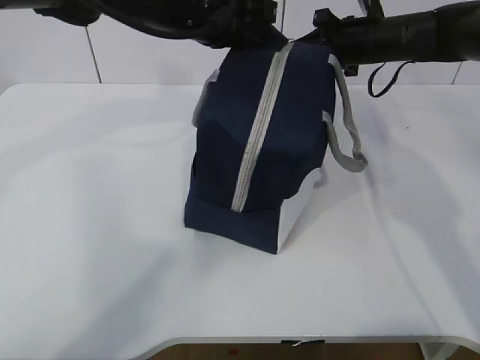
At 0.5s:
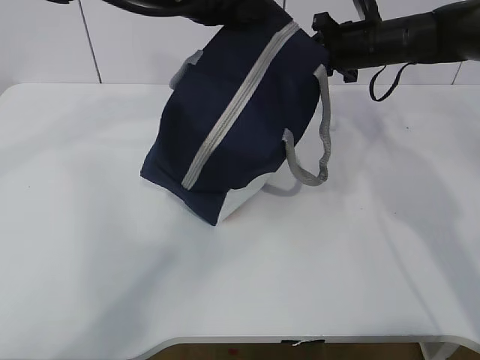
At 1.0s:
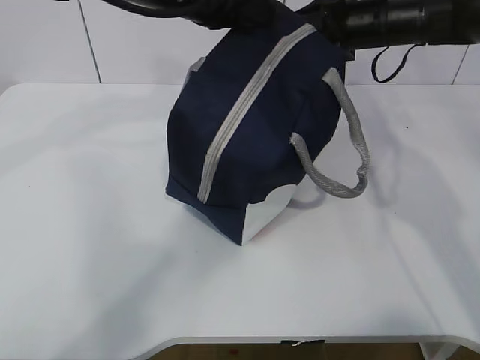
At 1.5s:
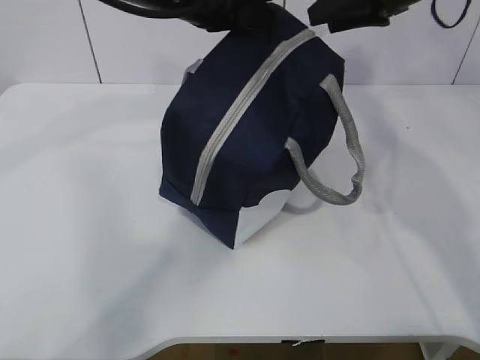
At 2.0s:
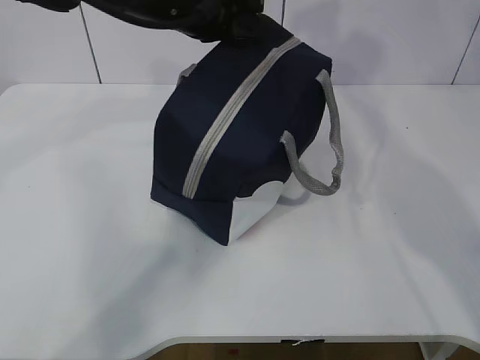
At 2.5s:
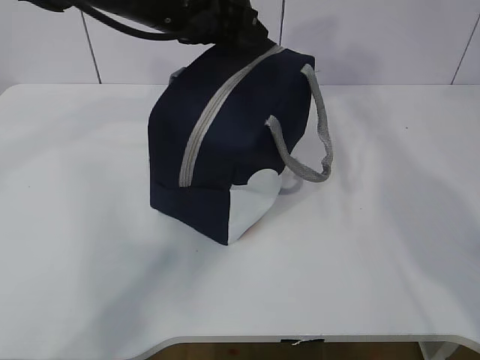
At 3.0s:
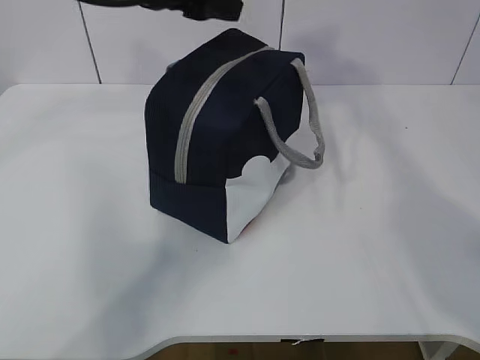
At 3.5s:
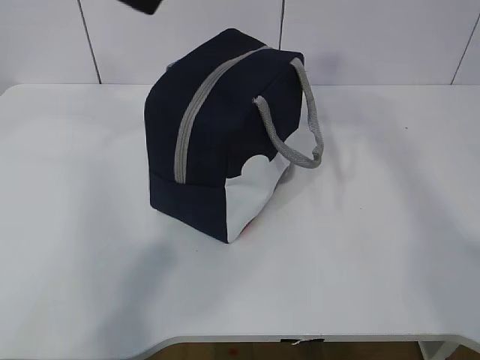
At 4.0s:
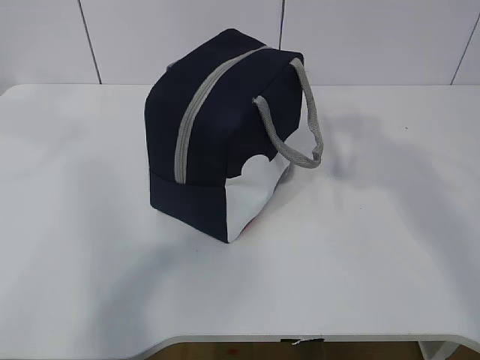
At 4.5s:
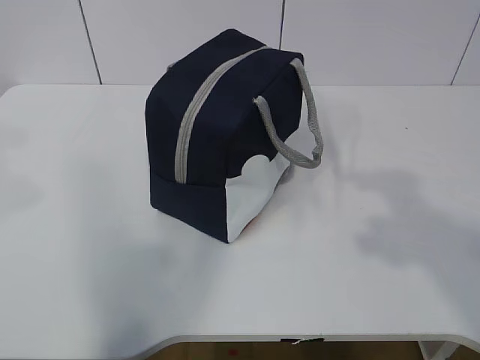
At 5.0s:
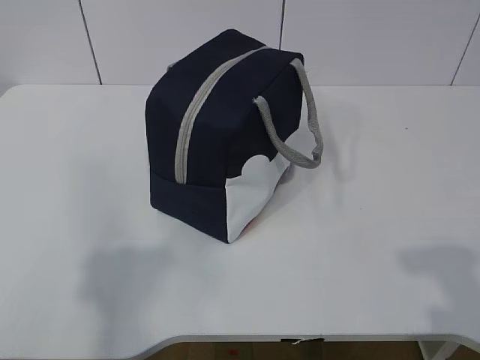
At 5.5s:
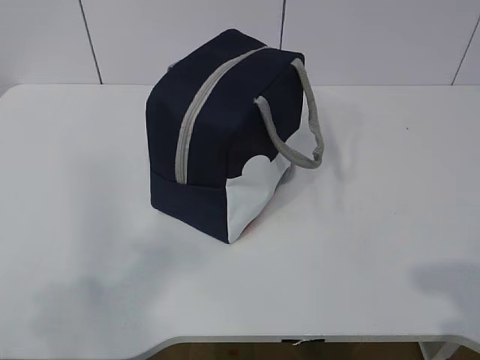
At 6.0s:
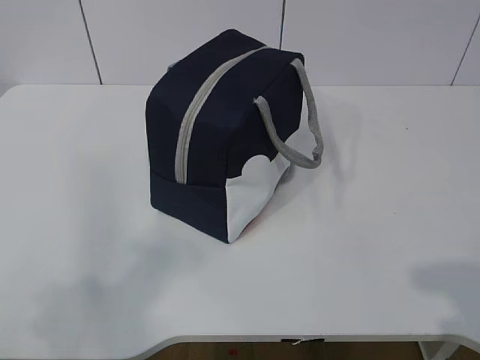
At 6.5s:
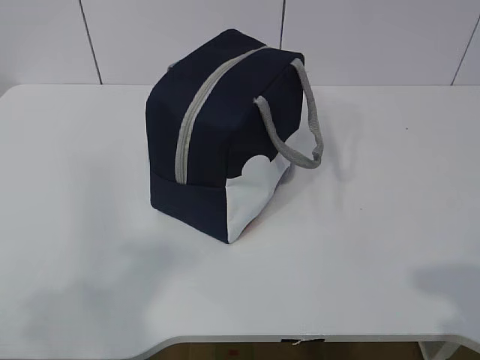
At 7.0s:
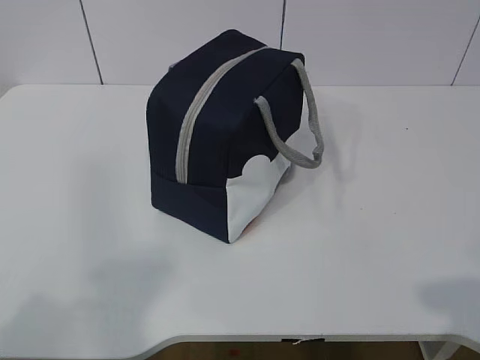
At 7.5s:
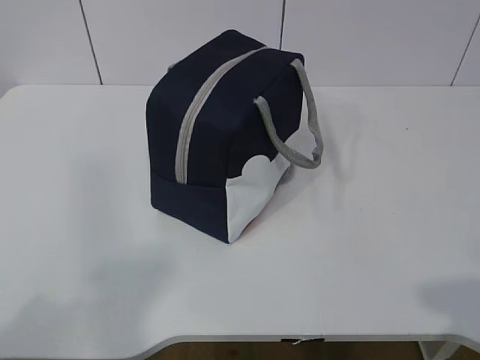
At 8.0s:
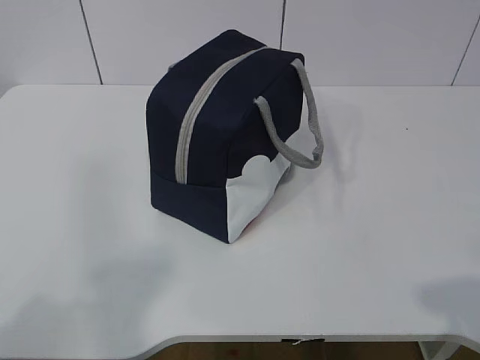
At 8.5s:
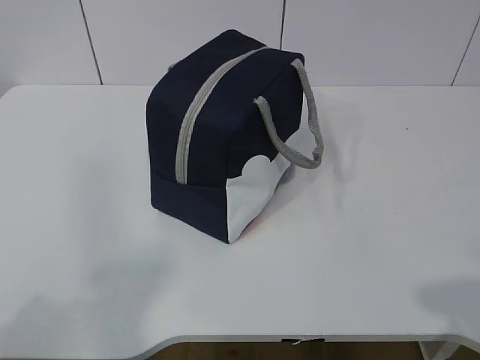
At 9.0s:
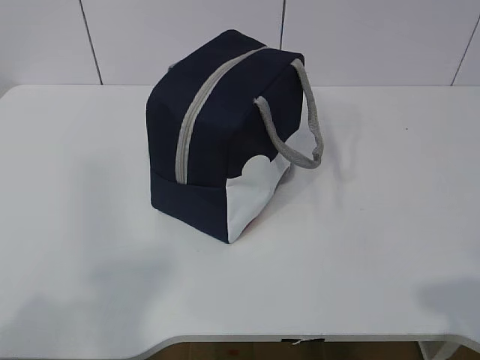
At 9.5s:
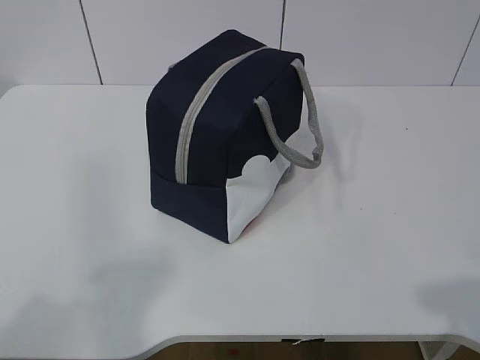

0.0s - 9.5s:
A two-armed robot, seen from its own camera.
0.0s - 2.0s: The right gripper is displaced upward and backward by roughly 20 cm, and opens its fingers.
2.0s - 4.0s: The left gripper goes approximately 25 cm backward, upward and to the left, and opens up, while the right gripper heads backward, covering about 25 cm.
4.0s - 5.5s: The right gripper is displaced backward and downward by some 20 cm; the left gripper travels backward, downward and to the left by approximately 30 cm.
7.5s - 9.5s: The two grippers keep their place.

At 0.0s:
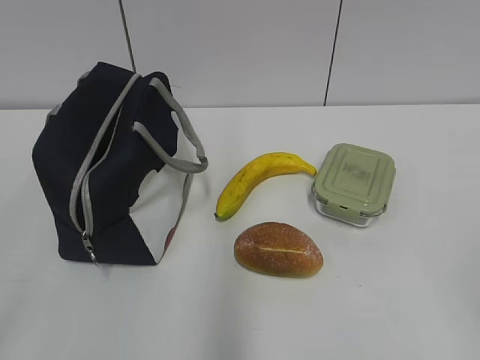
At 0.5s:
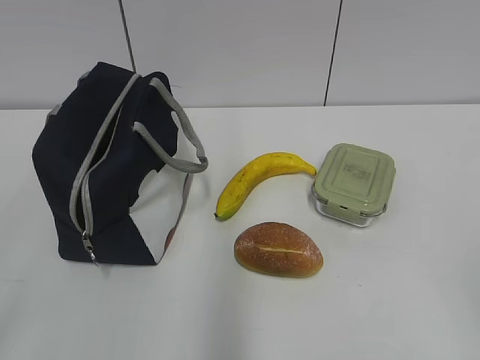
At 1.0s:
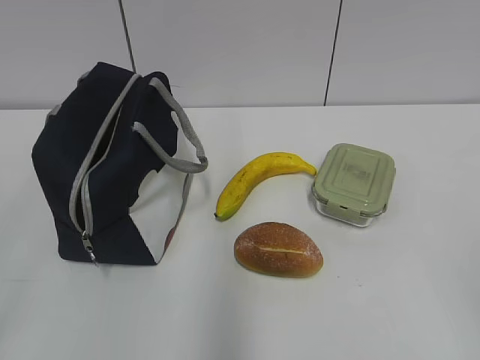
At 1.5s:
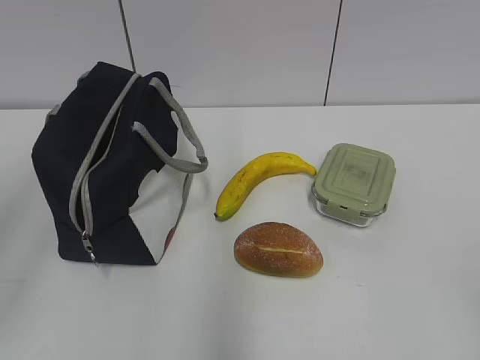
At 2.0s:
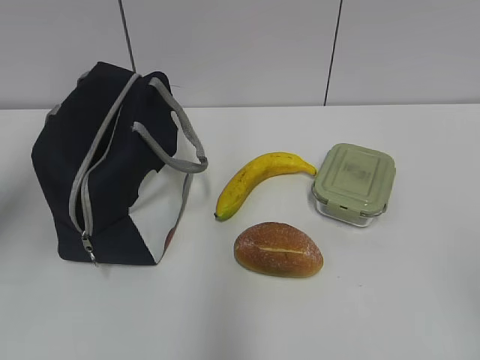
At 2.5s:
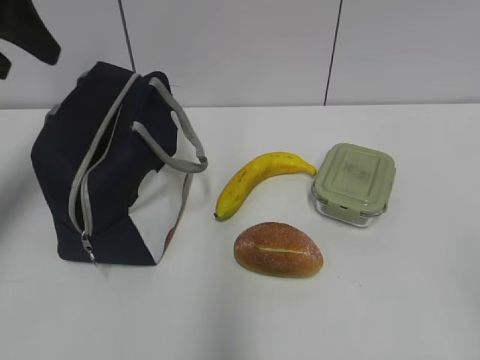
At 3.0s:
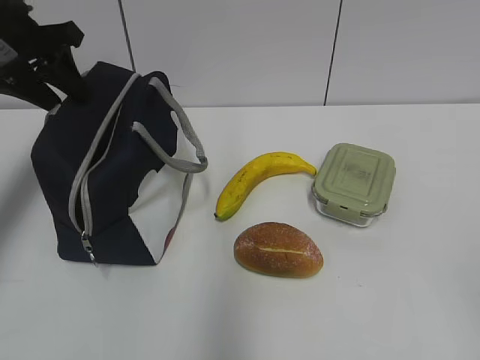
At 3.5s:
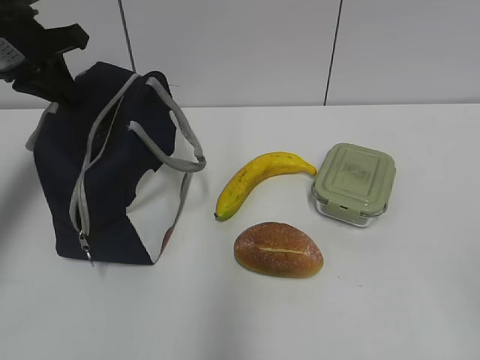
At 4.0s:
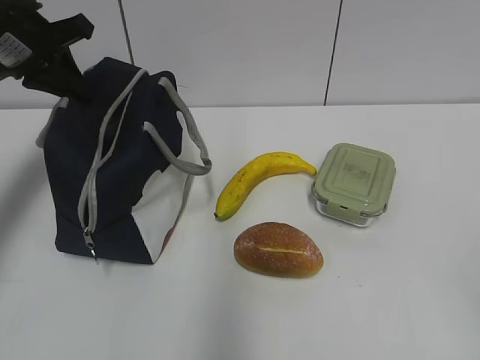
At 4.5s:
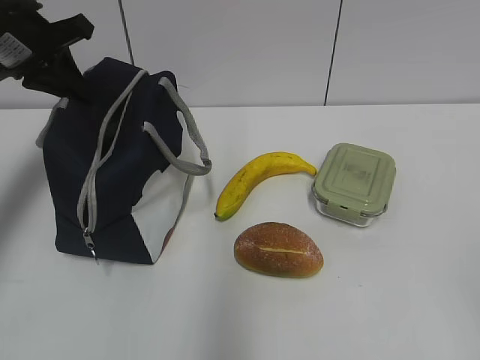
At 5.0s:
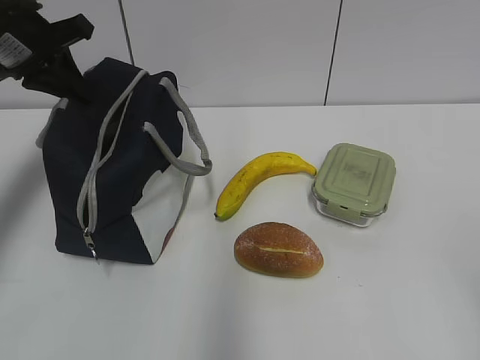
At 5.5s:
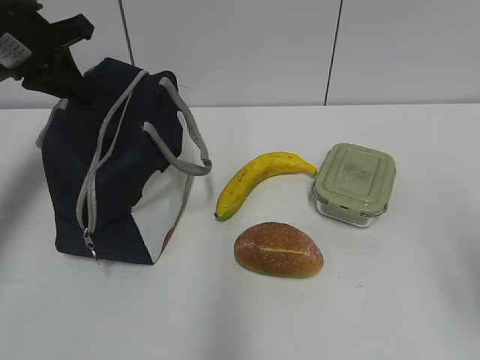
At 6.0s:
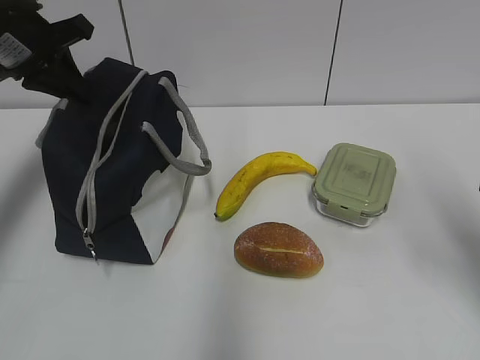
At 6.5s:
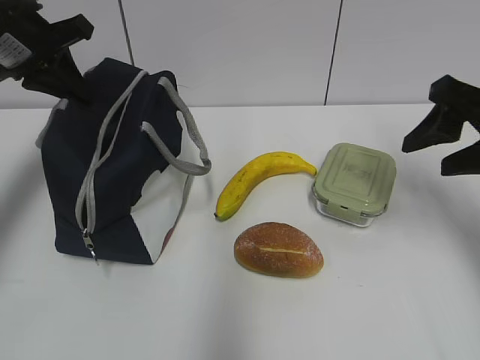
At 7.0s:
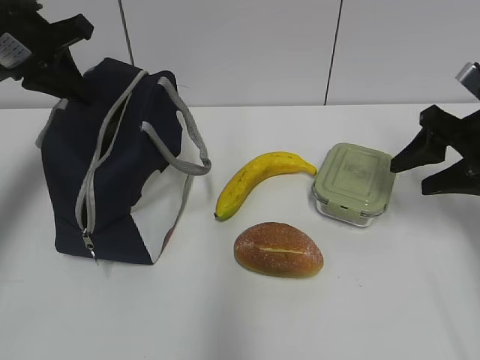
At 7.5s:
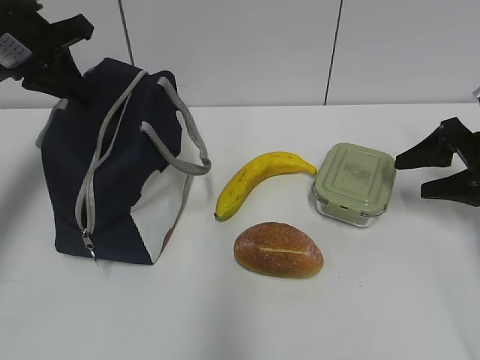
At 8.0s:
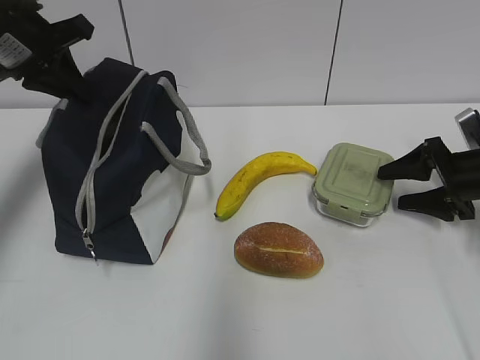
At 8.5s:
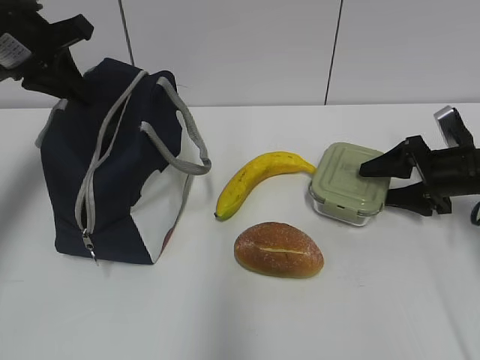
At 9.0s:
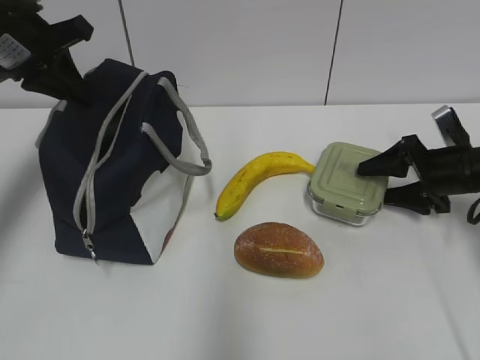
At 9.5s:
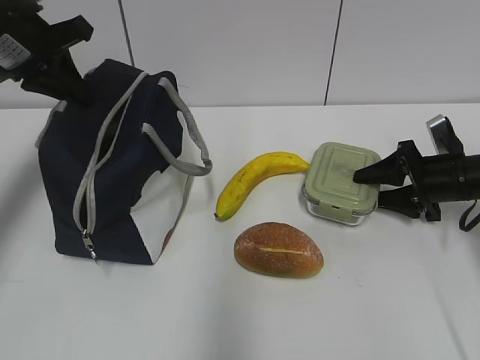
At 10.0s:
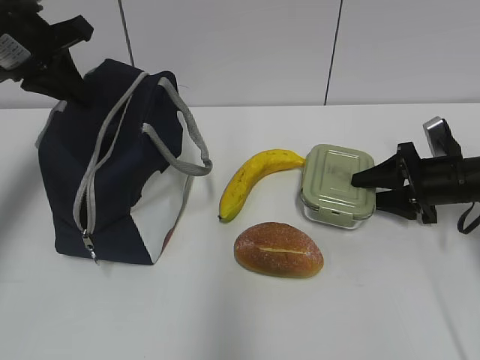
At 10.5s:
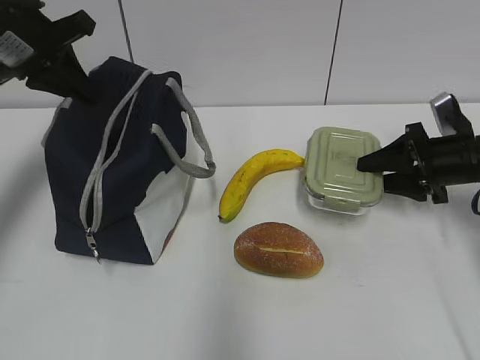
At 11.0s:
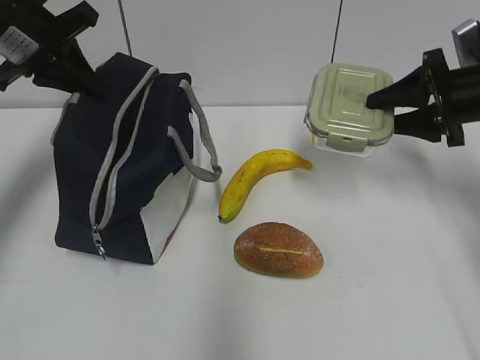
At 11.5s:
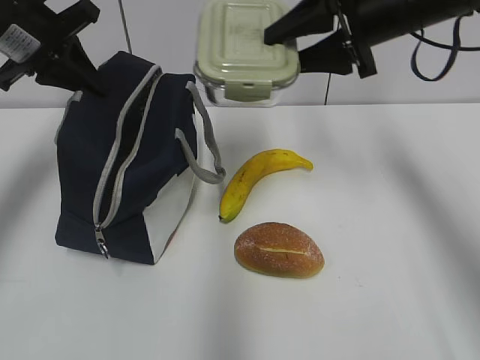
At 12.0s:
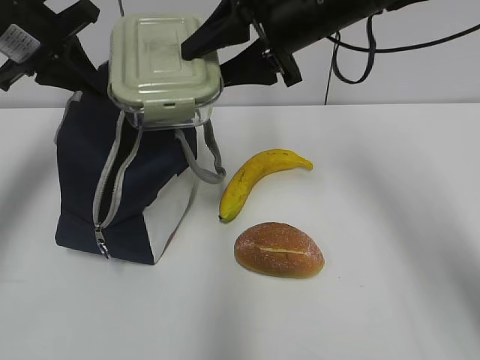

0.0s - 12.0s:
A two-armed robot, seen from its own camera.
Step, 0.0s - 3.0s: Grab the lunch bag with your left hand.
Step, 3.5s - 10.0s: Grab the lunch box with your right hand.
2.0s - 4.0s: The left gripper heads forward and downward, covering some 25 cm, and closes.
4.0s - 6.0s: The right gripper shifts approximately 20 cm forward.
6.0s - 8.0s: The right gripper goes about 25 cm forward and downward.
8.0s - 10.0s: The grippers make only small movements.
10.0s - 12.0s: The right gripper is displaced upward and to the left by about 30 cm.

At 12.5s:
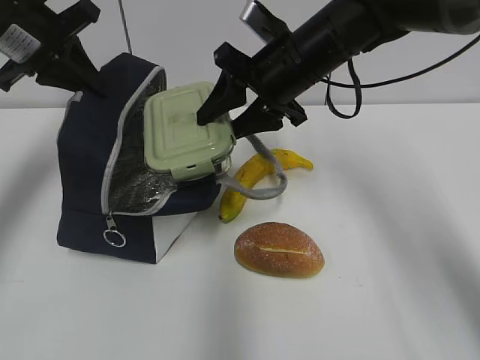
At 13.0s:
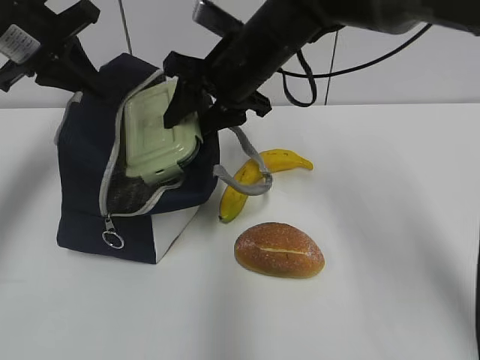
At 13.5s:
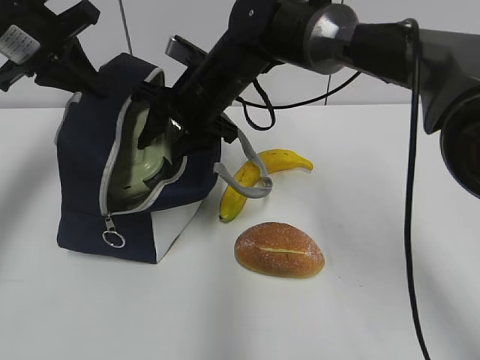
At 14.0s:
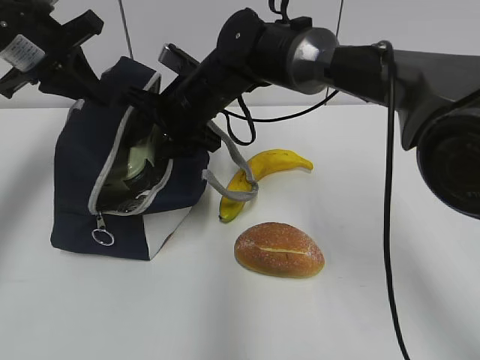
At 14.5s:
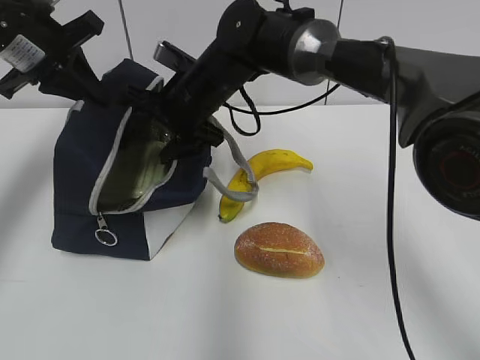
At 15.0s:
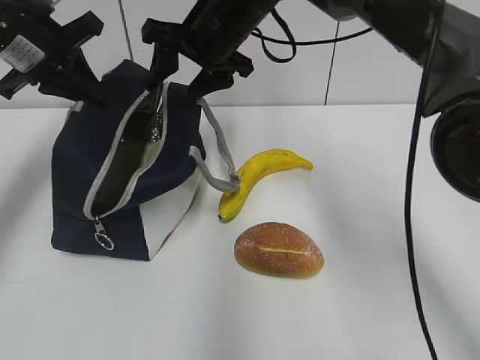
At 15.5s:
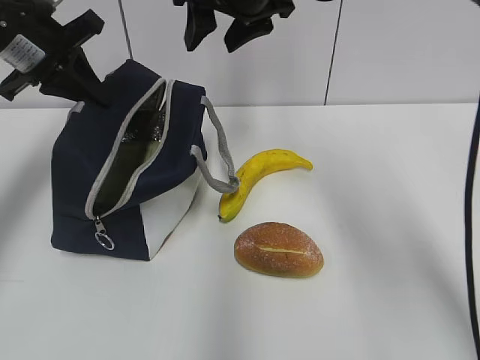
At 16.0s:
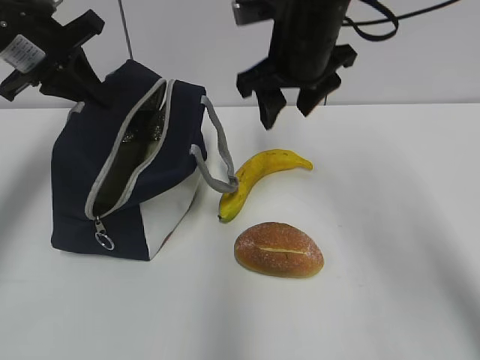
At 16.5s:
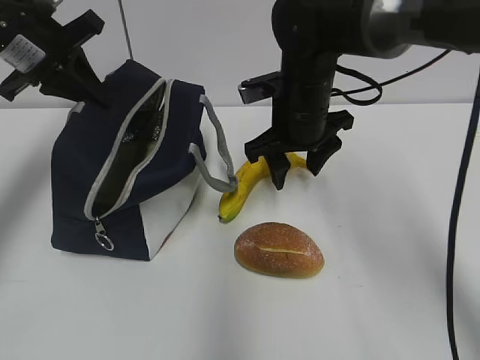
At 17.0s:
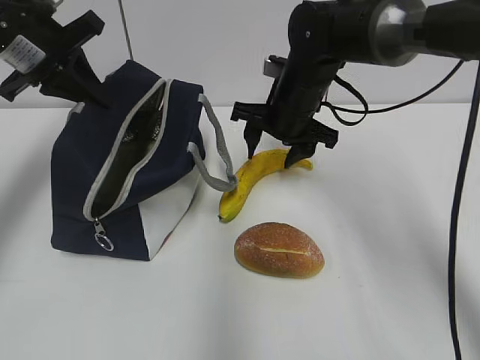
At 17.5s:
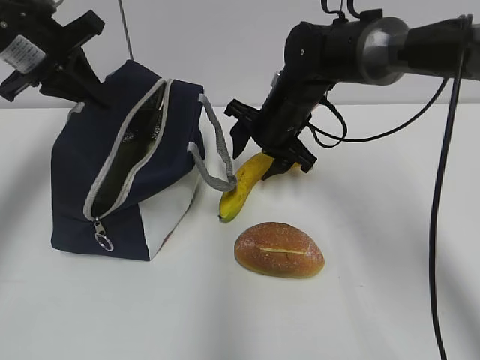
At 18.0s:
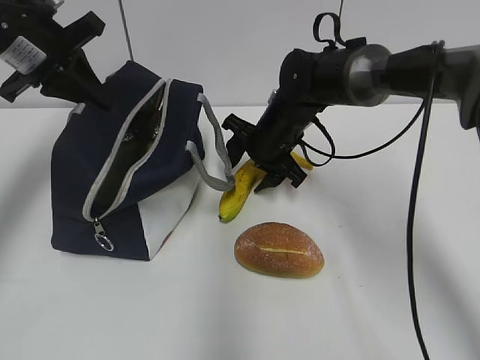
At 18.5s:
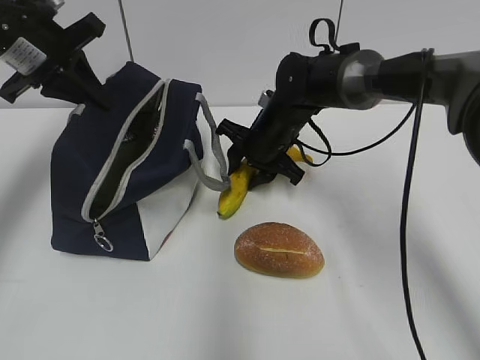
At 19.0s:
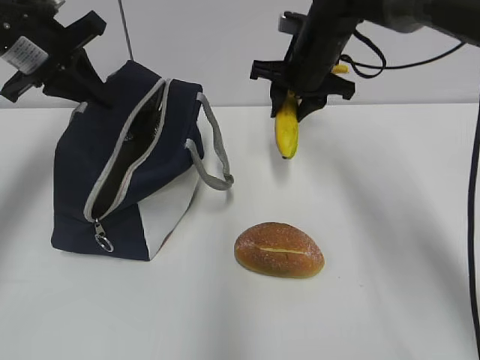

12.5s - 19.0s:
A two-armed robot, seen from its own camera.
Step, 15.0s - 18.5s: Grab the banana with your right hand.
12.5s - 14.5s: The right gripper moves to the left and downward, some 10 cm.
14.5s - 17.0s: The right gripper heads to the right, covering roughly 10 cm, and reaches roughly 15 cm upward, then returns.
17.0s - 19.0s: The right gripper moves about 5 cm.
